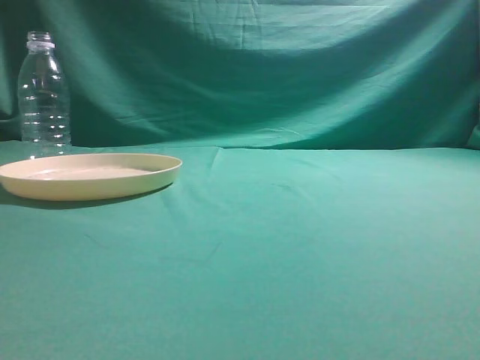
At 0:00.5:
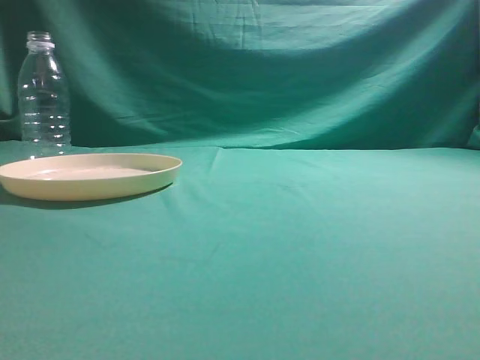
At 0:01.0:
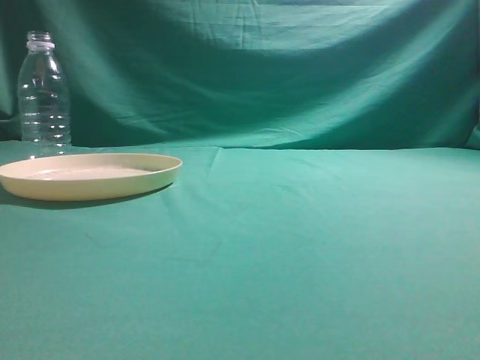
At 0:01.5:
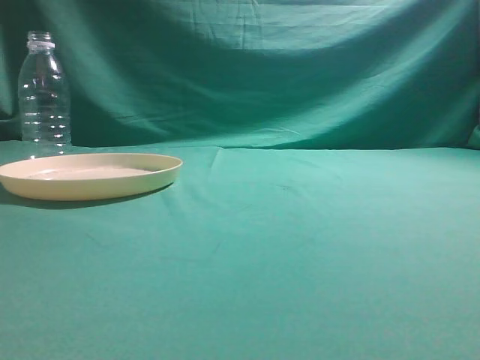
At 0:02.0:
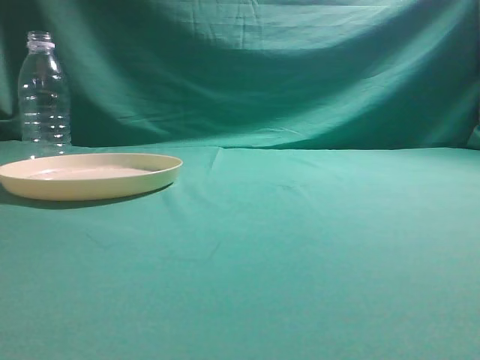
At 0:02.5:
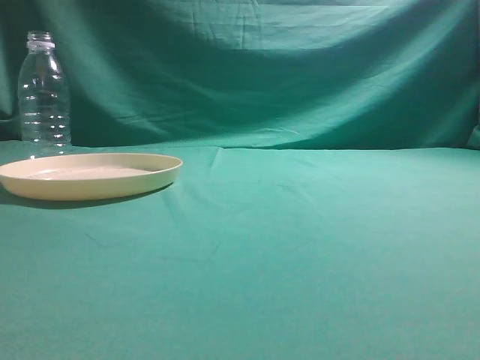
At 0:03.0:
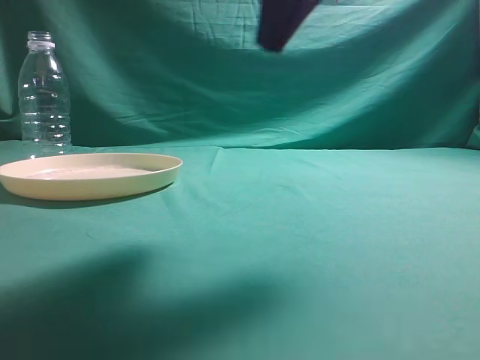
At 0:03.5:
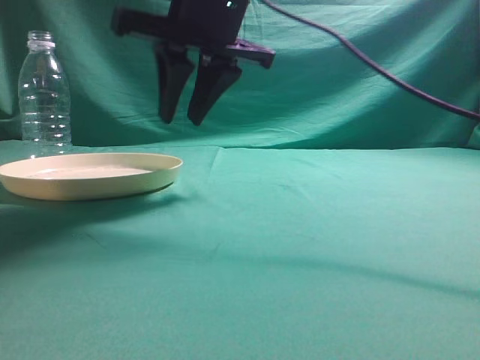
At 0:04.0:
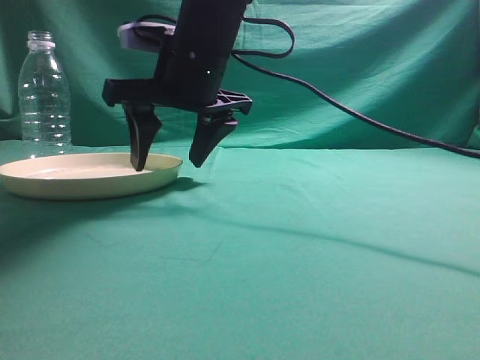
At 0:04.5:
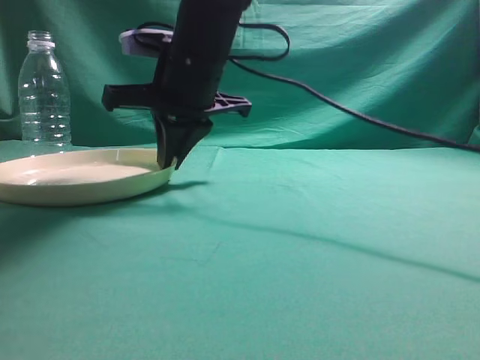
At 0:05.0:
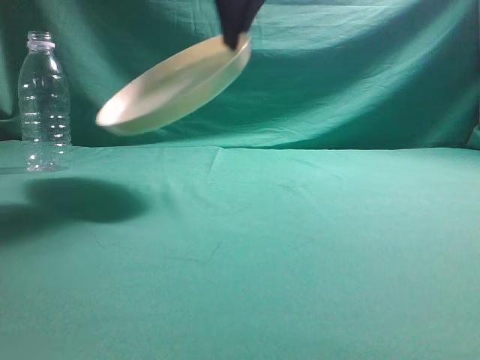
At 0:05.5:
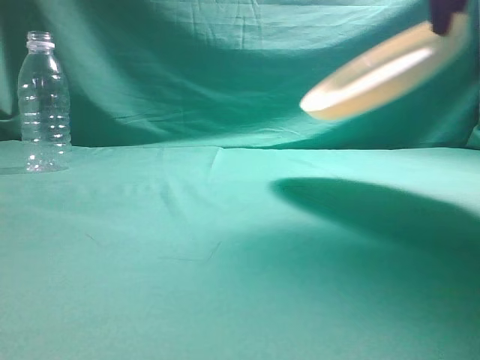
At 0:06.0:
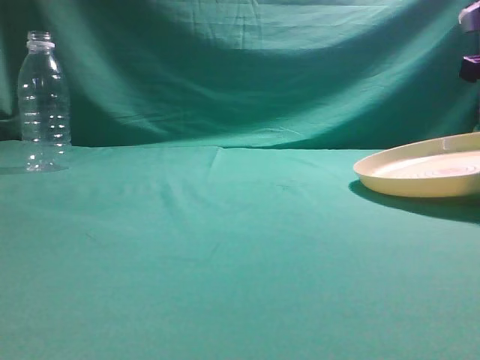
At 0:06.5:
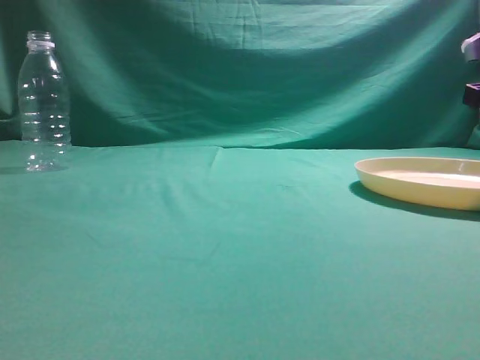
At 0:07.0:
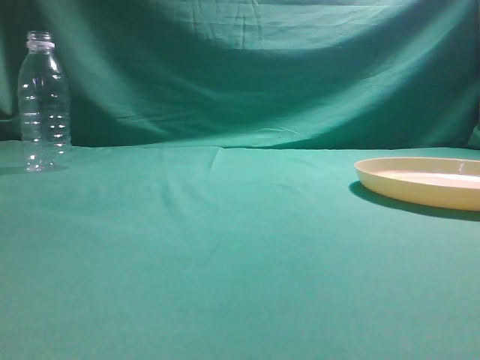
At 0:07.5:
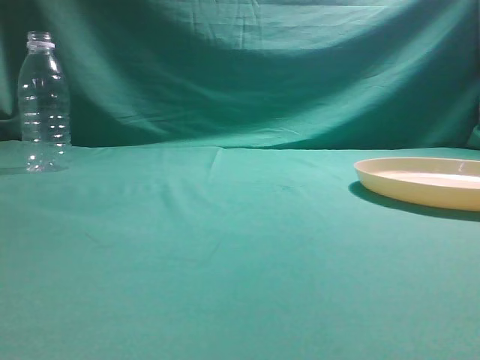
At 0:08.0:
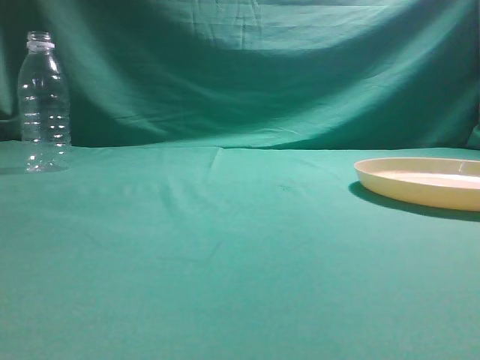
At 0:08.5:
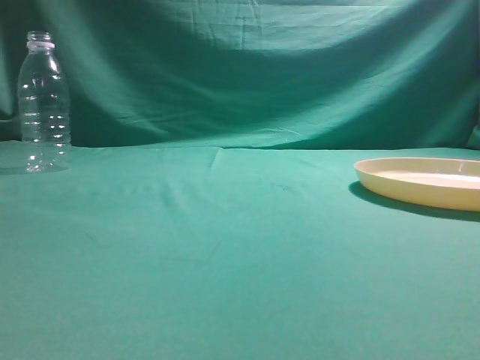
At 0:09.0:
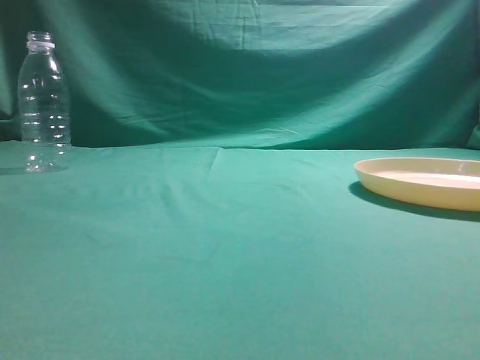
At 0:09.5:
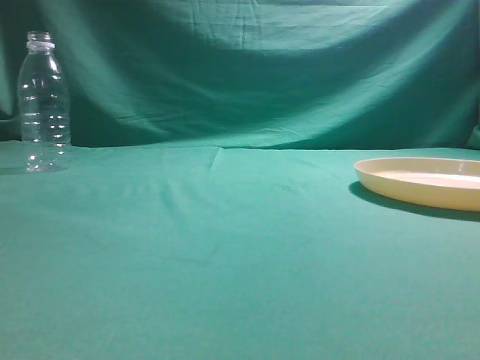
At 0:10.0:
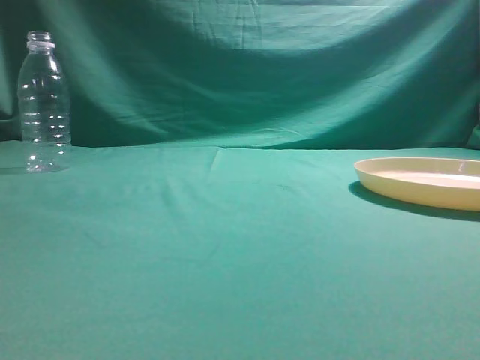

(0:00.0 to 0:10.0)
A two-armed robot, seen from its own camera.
Step, 0:00.0 - 0:04.5: Pick the container that can hold fruits.
Step, 0:05.0 - 0:06.5: Move the picked object to the right side of the table.
0:02.0 - 0:04.0: The right gripper travels to the left and forward by about 40 cm, and opens its fingers.
0:04.0 - 0:06.0: The right gripper goes roughly 30 cm to the right, and closes its fingers.
0:06.0 - 0:08.0: The right gripper travels backward and upward by roughly 35 cm, and opens and closes again.
